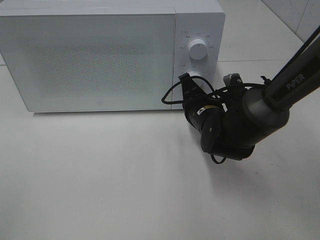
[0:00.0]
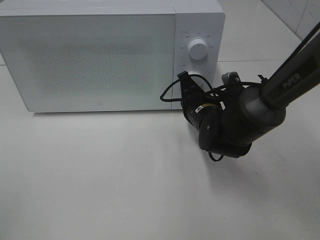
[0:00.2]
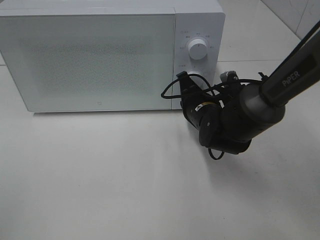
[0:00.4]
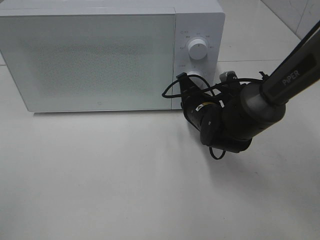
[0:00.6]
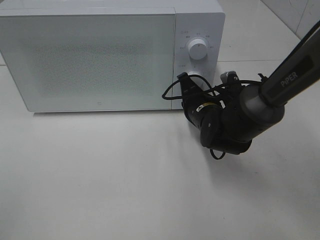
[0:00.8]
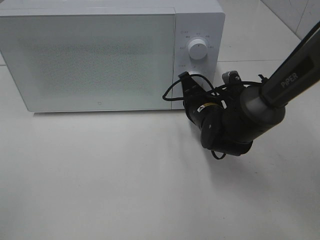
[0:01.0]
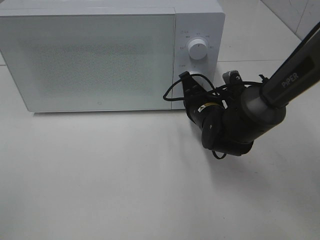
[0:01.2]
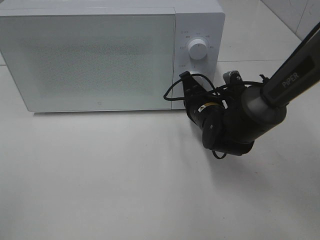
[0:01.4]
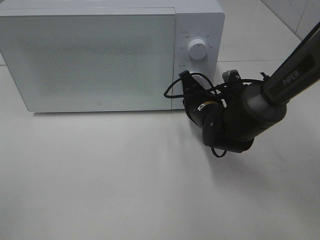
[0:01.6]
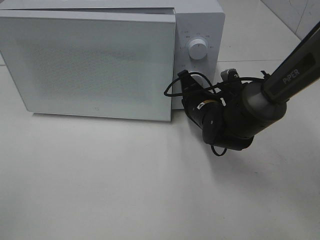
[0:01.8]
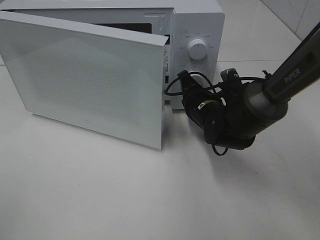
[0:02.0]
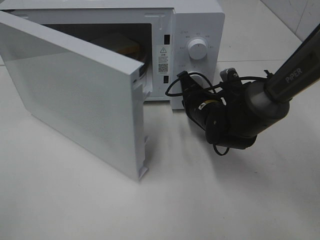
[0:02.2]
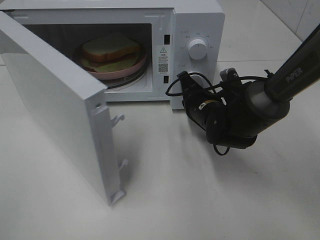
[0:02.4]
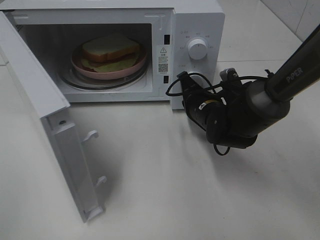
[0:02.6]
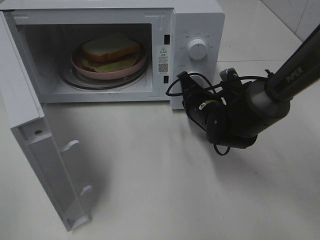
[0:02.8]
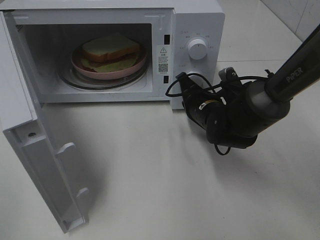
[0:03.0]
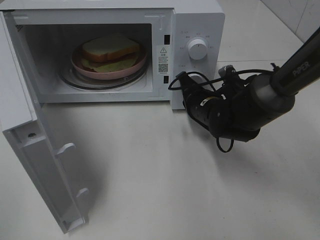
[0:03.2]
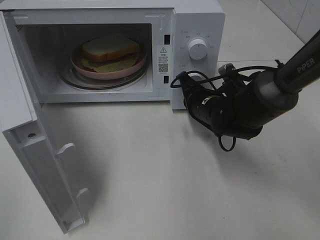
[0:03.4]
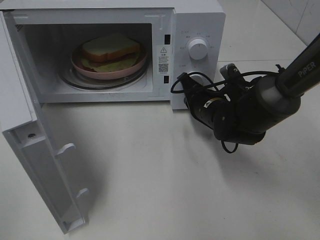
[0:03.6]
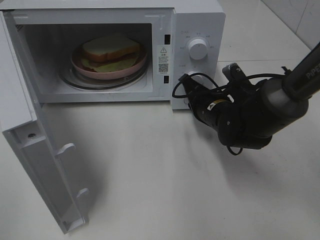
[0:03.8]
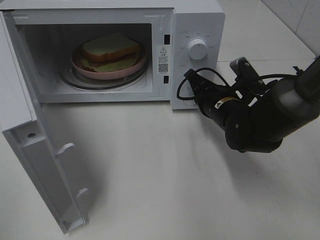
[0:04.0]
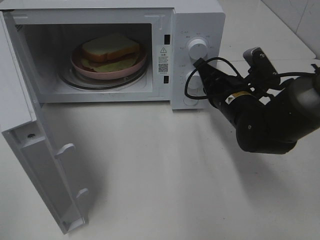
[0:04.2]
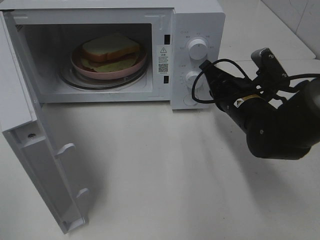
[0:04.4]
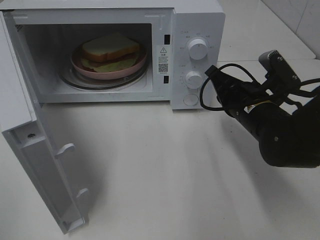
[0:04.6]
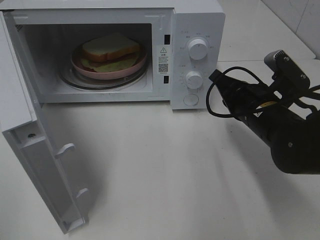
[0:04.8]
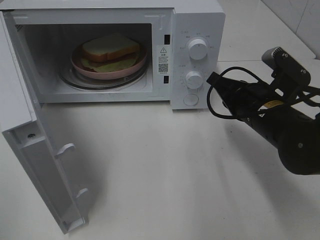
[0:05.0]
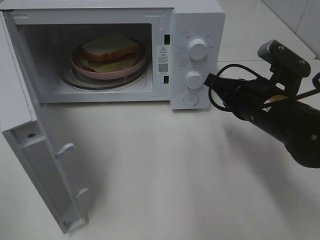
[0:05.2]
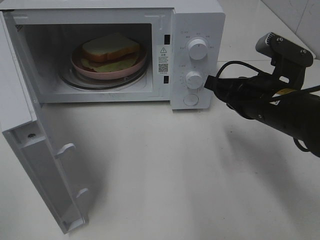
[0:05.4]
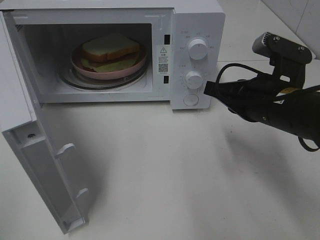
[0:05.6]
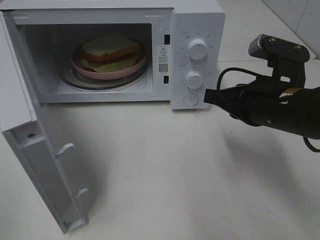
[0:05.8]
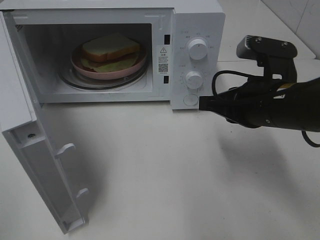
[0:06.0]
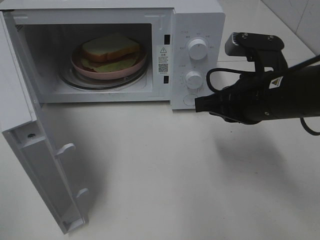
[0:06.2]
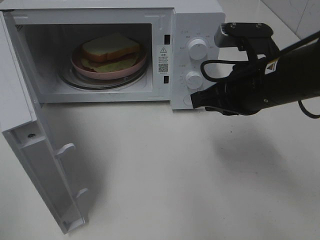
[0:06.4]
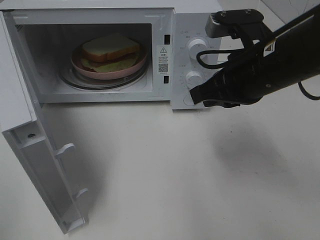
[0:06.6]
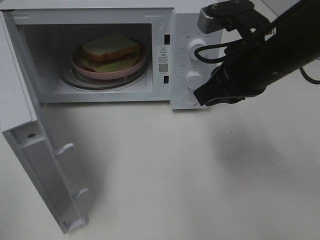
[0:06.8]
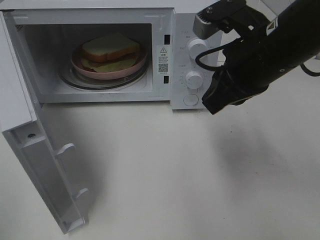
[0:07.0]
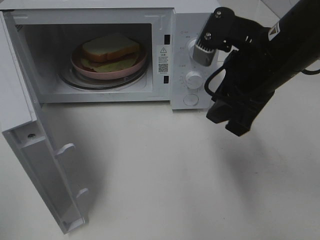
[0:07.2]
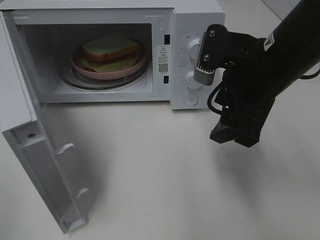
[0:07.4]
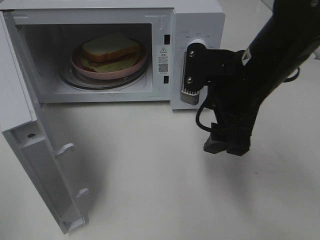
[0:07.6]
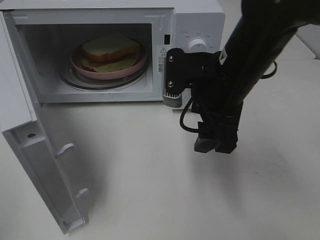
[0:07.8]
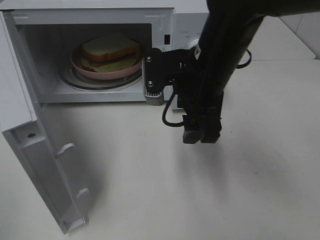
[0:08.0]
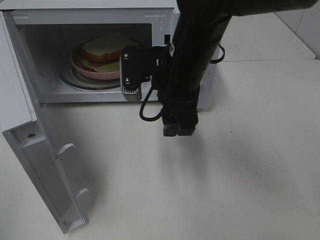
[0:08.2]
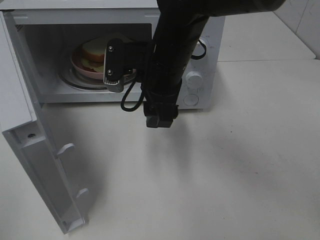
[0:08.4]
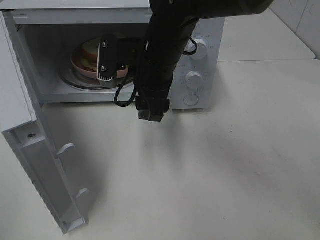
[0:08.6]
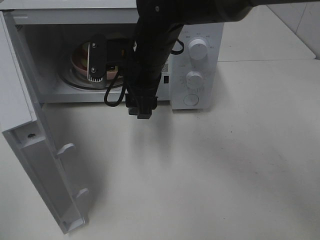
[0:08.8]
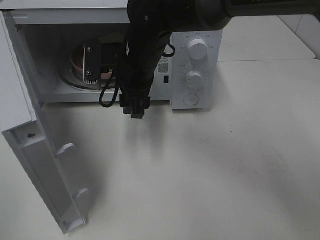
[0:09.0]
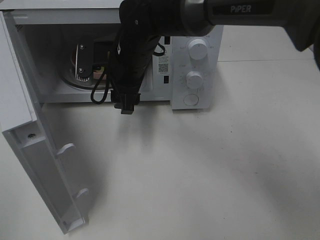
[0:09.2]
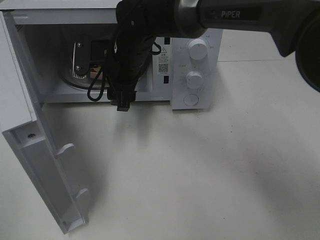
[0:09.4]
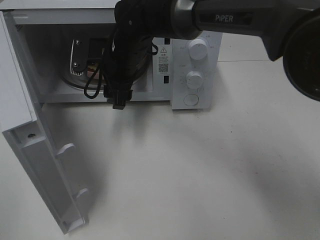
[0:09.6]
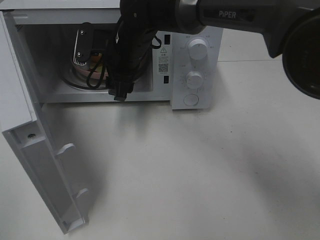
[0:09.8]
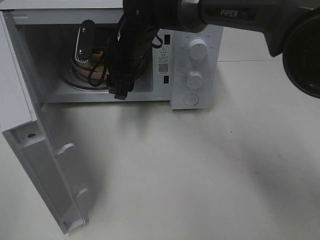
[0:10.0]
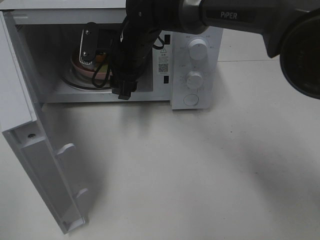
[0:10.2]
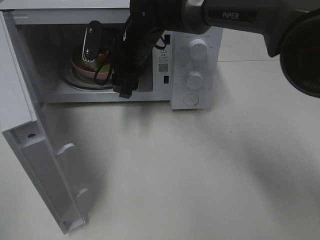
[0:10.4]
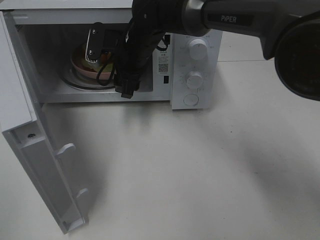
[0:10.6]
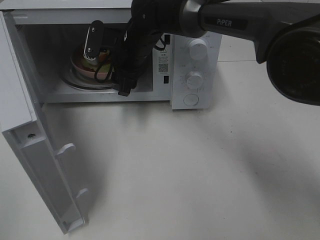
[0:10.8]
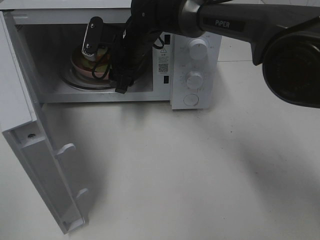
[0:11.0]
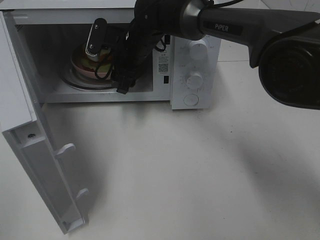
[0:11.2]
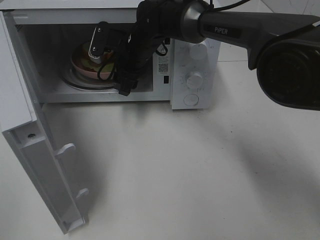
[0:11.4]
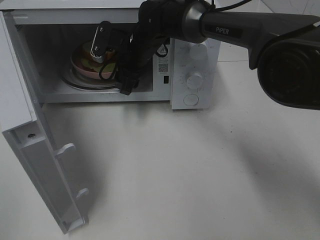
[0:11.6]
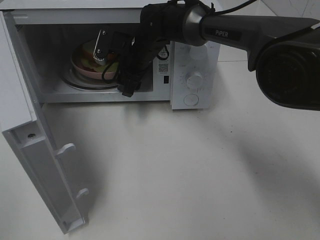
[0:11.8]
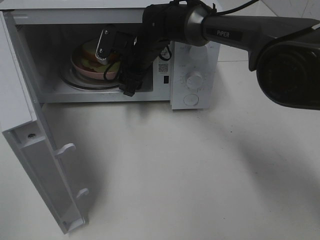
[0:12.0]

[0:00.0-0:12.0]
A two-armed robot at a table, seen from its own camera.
Task of the whole recording: Heat Sandwich.
Step, 0:00.0 to 0:04.0: Right hand: press the switch.
0:00.0 to 0:01.6: There are only small adjustments of the grippers.
0:03.0 to 0:04.4: The right gripper changes place by some 10 cm.
0:04.4 to 0:06.0: The right gripper goes some 10 cm backward and upward.
0:06.0 to 0:07.6: The right gripper moves about 5 cm, and opens up.
0:07.6 to 0:09.0: The right gripper heads to the left and forward, covering some 20 cm.
0:09.0 to 0:10.4: The right gripper is displaced forward by roughly 5 cm.
0:10.4 to 0:12.0: The right gripper moves roughly 5 cm.

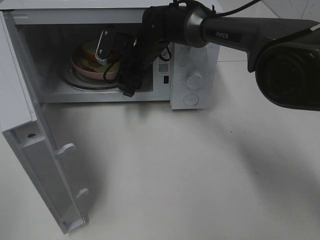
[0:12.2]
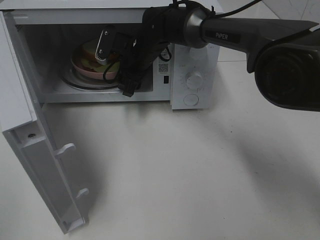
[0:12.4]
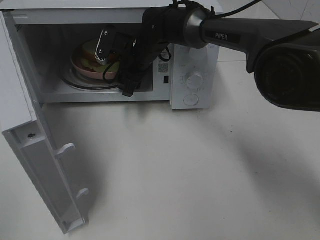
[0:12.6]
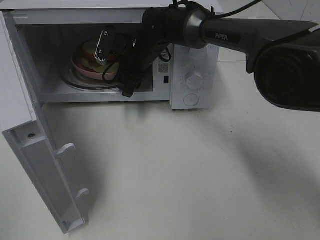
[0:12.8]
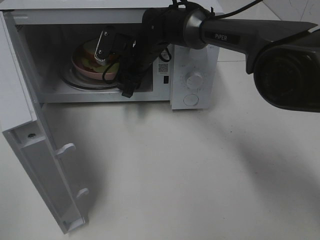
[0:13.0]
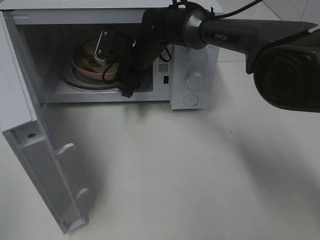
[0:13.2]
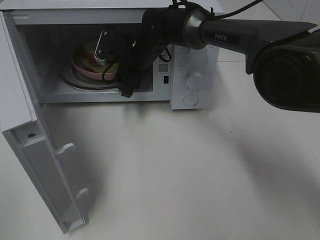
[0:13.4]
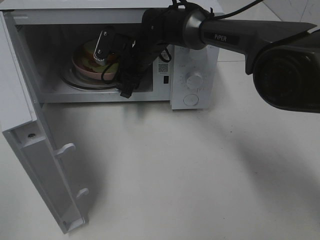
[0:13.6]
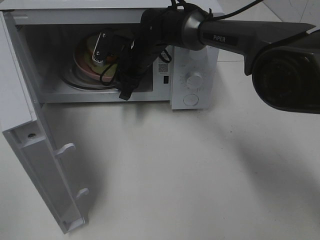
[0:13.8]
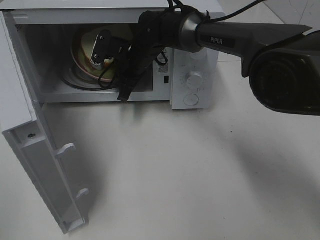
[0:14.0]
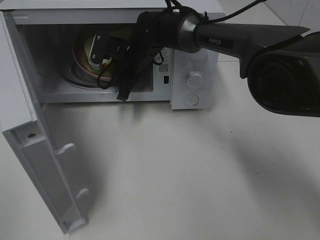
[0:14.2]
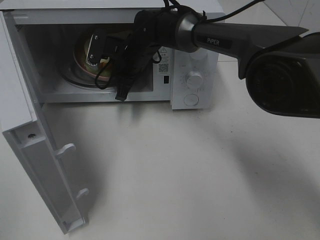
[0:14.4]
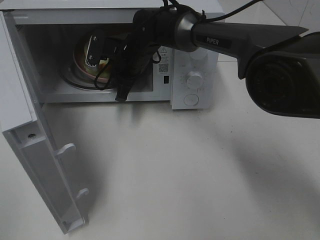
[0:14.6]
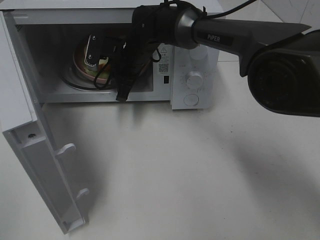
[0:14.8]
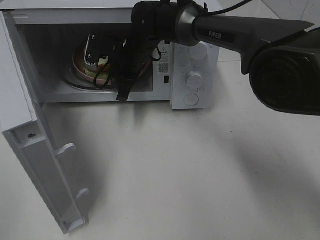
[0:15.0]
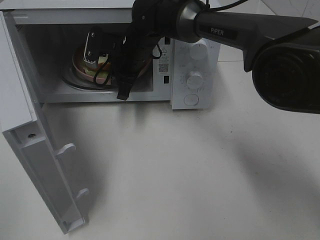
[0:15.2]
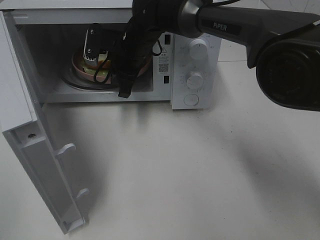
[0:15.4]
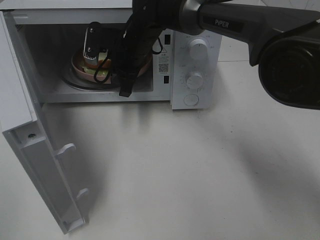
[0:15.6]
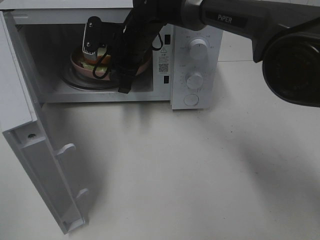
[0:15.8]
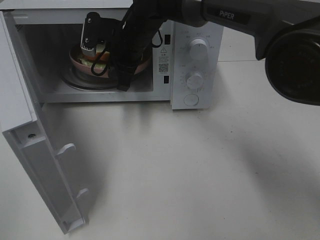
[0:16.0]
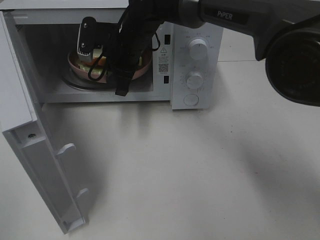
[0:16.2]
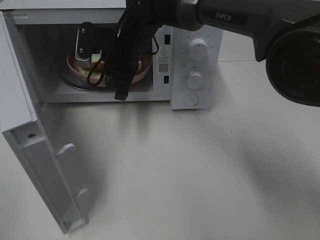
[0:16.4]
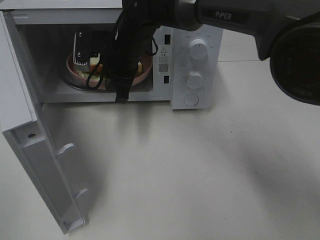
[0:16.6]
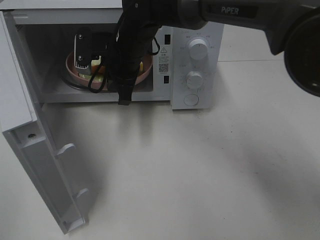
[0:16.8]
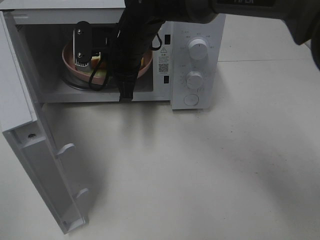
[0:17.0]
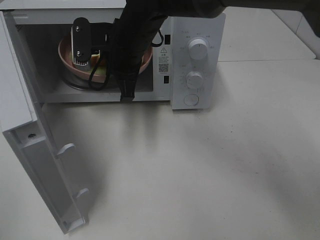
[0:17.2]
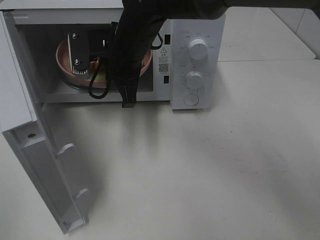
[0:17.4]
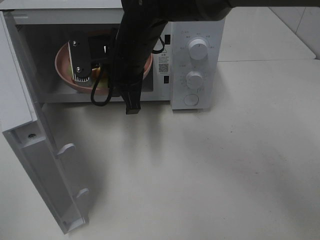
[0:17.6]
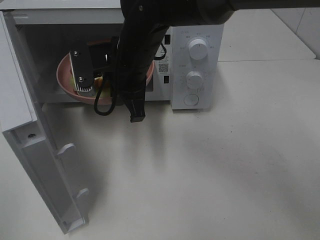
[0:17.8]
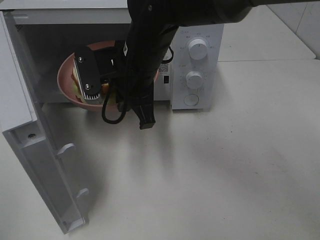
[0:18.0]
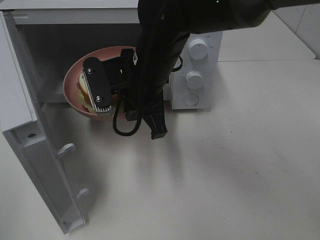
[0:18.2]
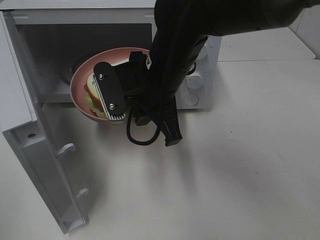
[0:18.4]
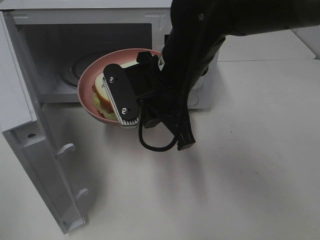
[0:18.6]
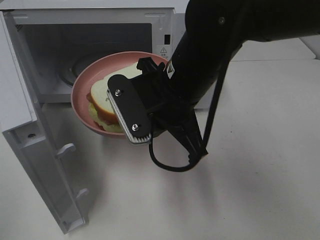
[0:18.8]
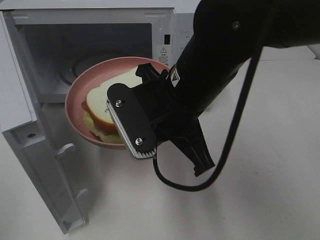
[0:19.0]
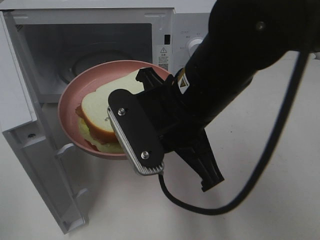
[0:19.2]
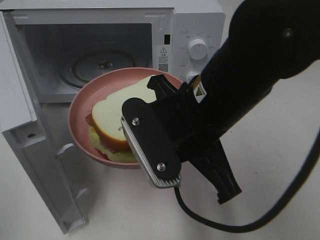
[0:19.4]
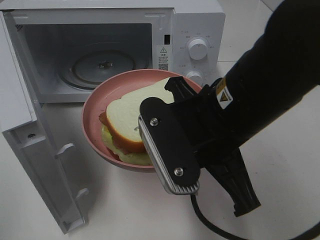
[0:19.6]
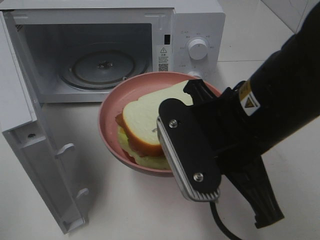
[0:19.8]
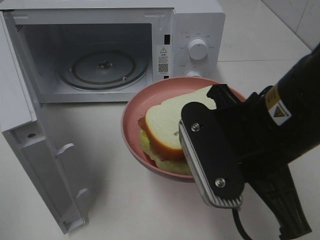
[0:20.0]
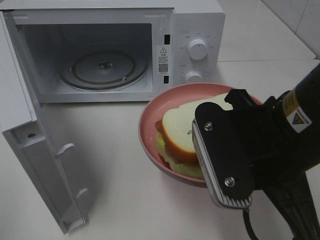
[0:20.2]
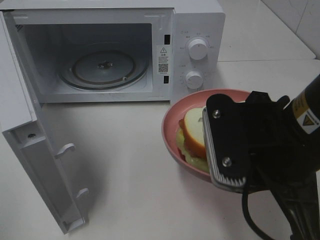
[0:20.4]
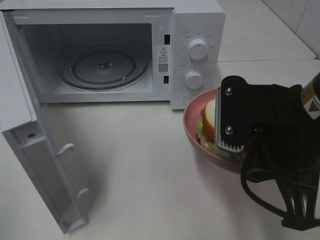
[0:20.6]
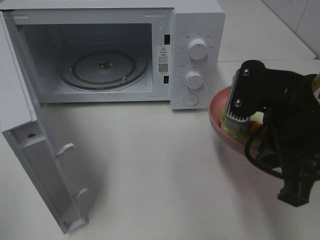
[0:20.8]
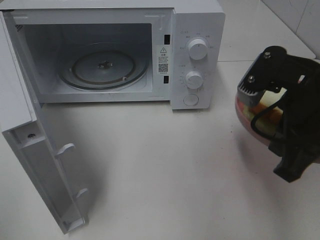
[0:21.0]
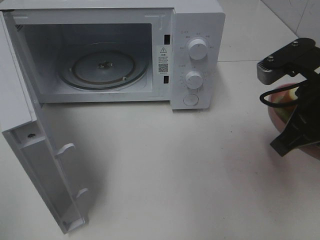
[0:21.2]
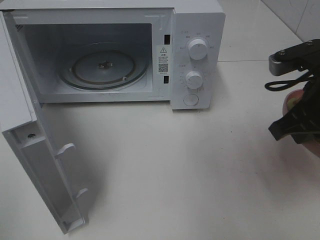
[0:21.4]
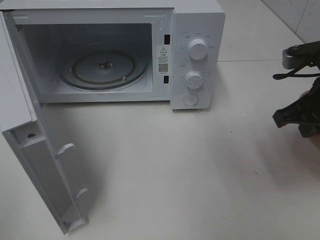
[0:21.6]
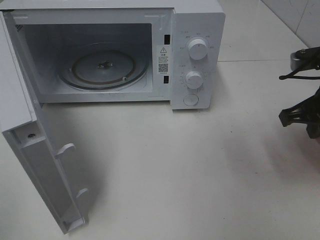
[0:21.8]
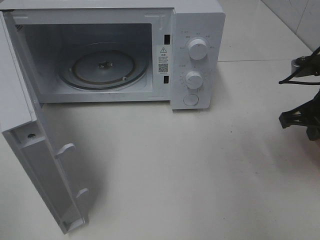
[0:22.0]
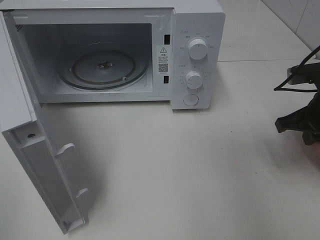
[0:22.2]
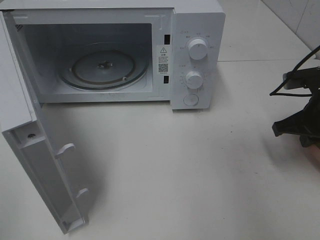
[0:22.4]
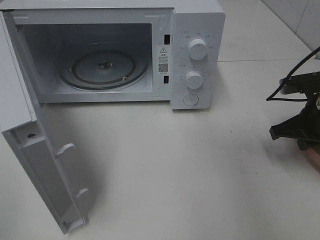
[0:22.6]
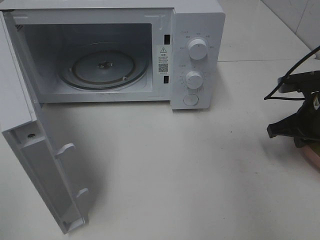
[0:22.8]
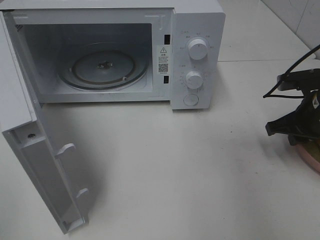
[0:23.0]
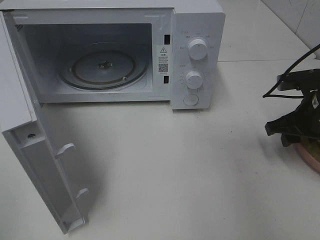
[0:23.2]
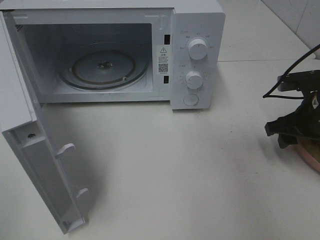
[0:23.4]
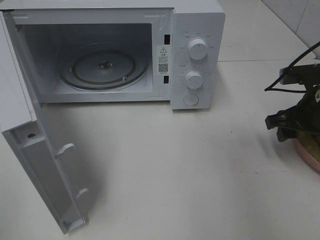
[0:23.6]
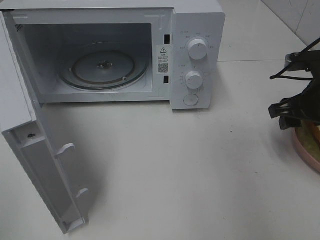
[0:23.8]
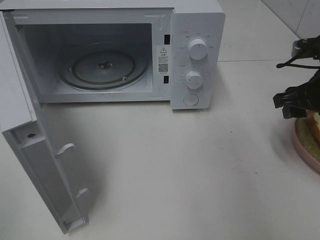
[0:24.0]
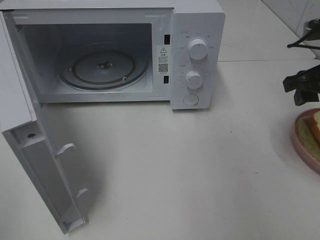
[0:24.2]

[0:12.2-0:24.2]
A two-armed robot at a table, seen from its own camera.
Task of the whole recording: Heat Sandwich.
Step, 0:12.2 to 0:14.6: Right hand: grab the plate with the sandwich.
Step, 0:14.8 to 0:23.2: Right hand: place the plate on the table.
0:12.2 to 0:13.8: The two grippers keep their place.
0:13.8 to 0:15.2: The right gripper closes its fingers.
0:15.2 to 0:16.6: The grippers move only a little.
0:16.6 to 0:18.2: The right gripper shifts some 10 cm backward.
0:18.2 to 0:19.8: The right gripper heads backward and to the right, covering some 15 cm.
0:19.8 to 0:21.2: The right gripper moves to the right, some 10 cm.
0:21.2 to 0:22.6: The right gripper shifts some 15 cm downward, forward and to the right.
0:22.6 to 0:24.2: The right gripper travels upward by approximately 10 cm, and opens up.
